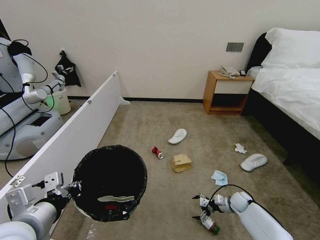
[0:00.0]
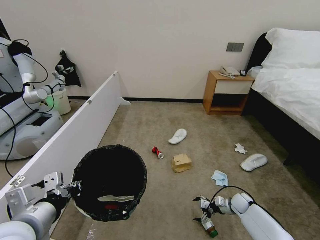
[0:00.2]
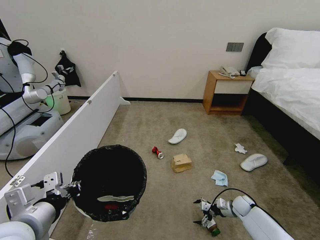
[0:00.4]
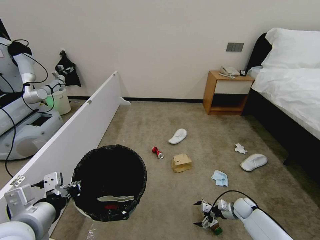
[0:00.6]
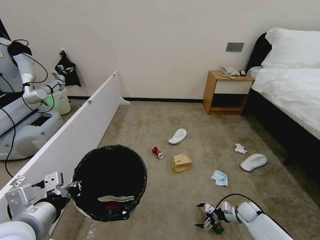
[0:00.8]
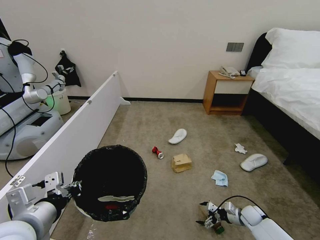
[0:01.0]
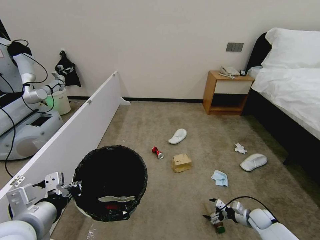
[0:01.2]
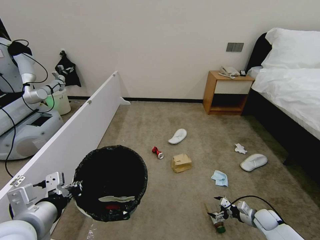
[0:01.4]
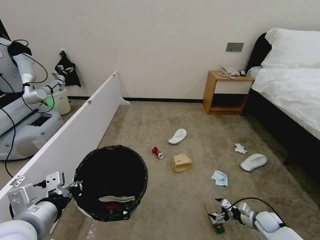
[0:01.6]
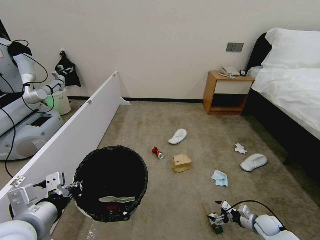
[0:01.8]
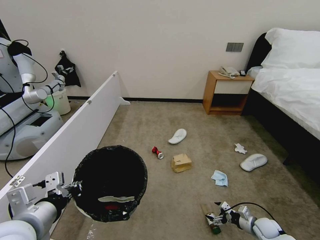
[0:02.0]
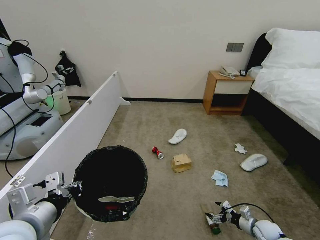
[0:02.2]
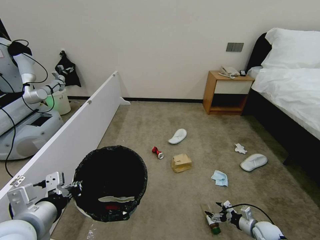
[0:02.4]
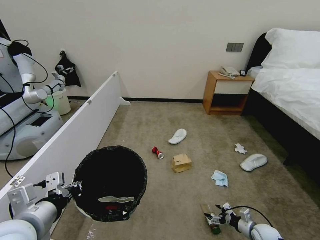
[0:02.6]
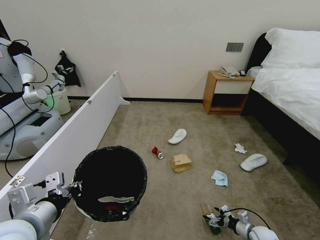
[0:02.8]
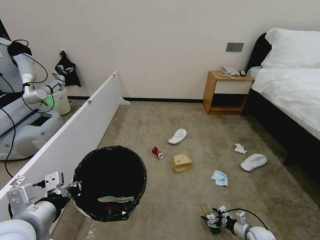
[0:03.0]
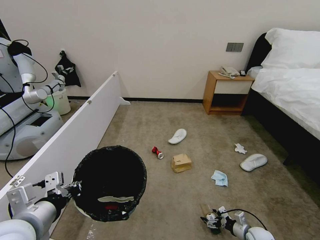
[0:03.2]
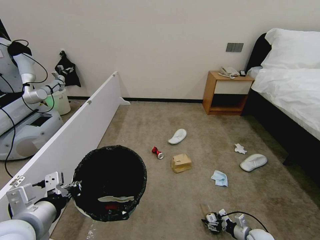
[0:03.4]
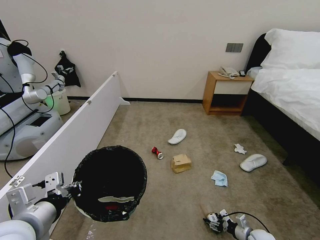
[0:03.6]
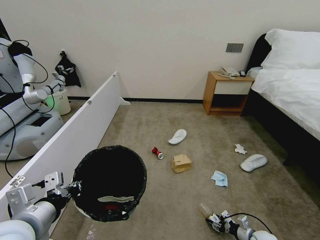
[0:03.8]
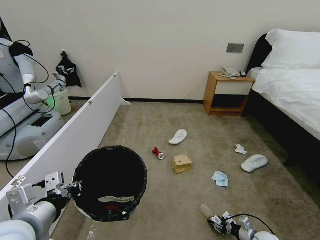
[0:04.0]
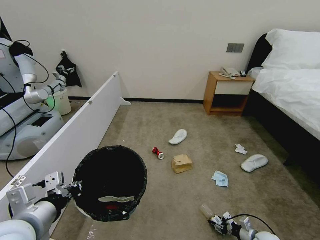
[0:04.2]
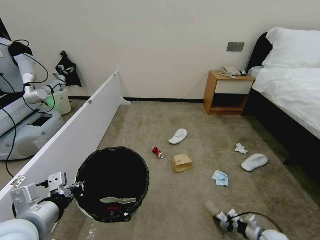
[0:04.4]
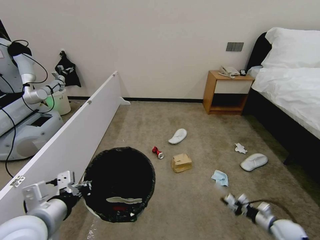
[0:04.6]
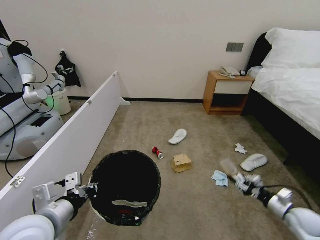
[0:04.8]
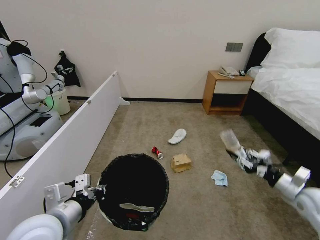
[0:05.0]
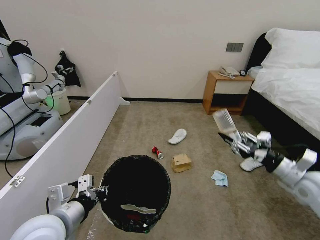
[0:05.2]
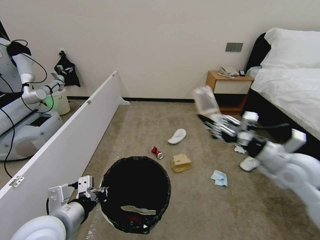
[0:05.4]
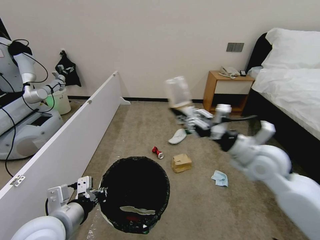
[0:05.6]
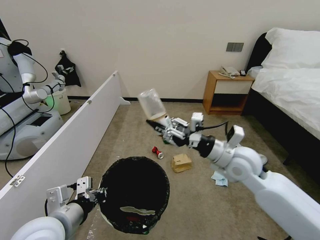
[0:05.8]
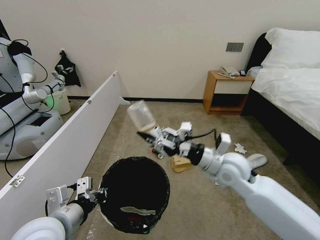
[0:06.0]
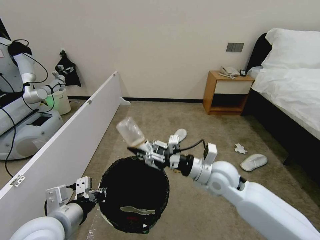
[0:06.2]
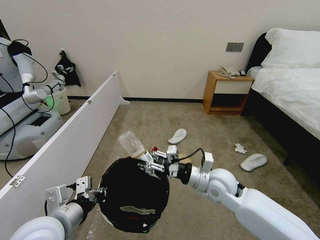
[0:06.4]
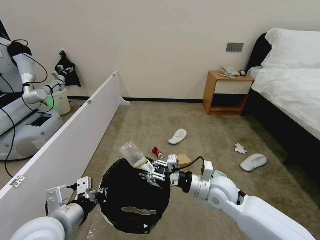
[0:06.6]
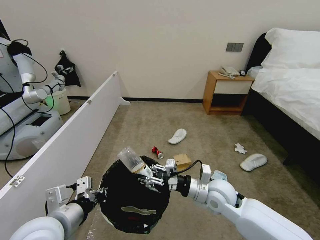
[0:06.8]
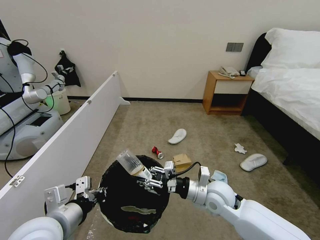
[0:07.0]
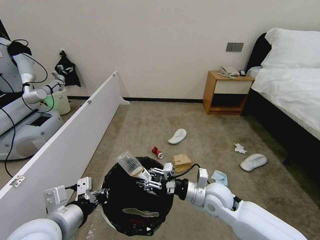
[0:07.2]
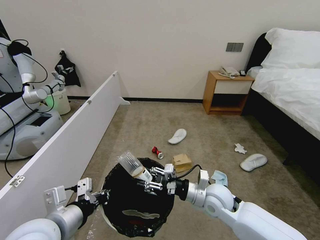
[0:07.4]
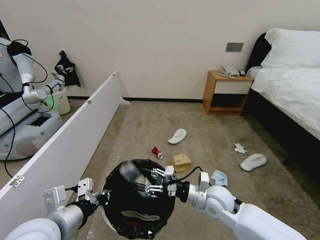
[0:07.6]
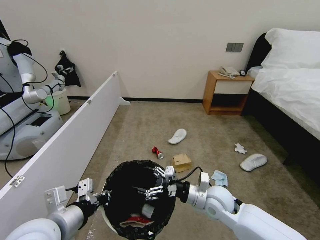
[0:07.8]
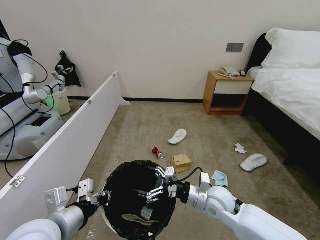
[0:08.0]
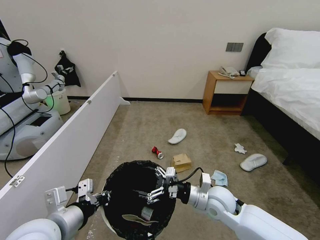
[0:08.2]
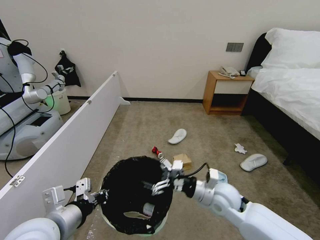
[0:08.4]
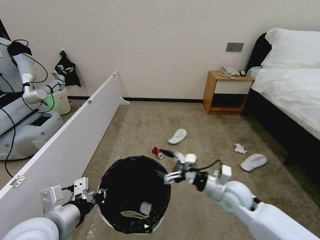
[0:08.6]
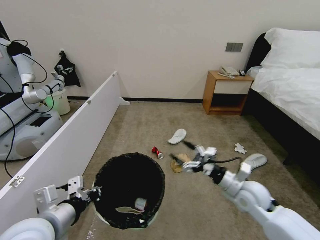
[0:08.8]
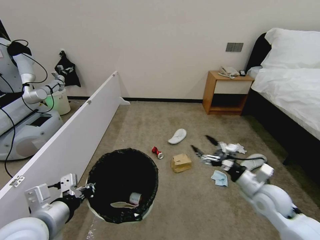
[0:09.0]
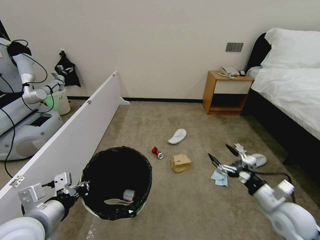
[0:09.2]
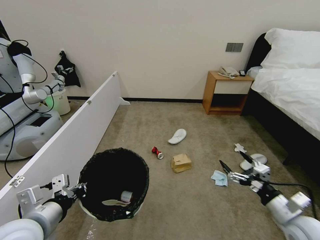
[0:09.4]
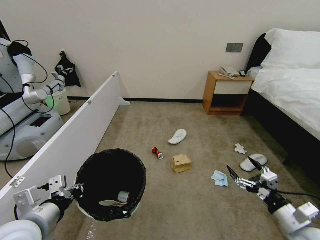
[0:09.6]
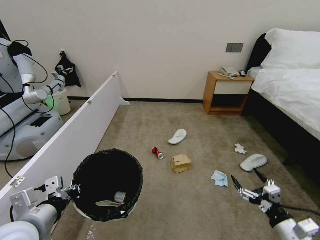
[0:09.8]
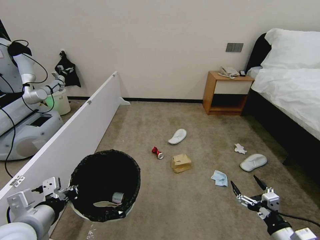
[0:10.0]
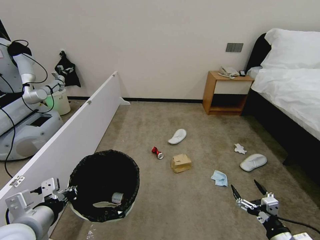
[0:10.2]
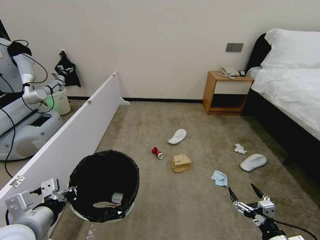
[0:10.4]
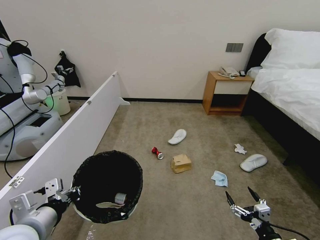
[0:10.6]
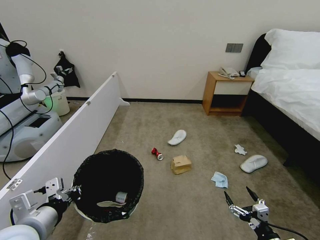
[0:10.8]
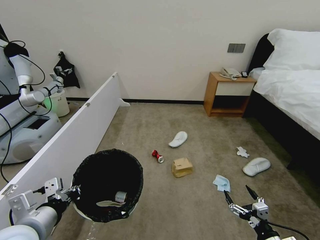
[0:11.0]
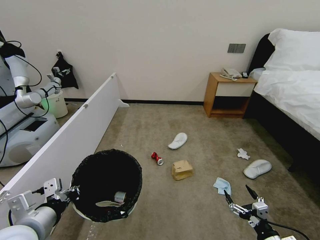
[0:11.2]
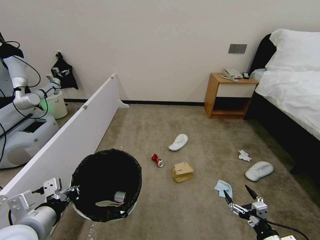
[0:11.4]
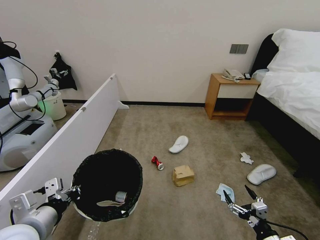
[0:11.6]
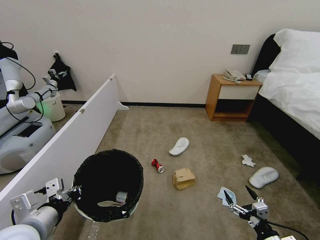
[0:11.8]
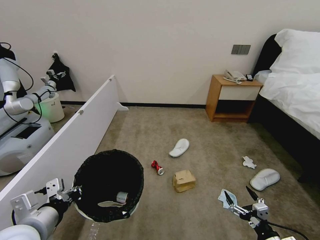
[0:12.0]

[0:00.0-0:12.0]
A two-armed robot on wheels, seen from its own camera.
Task of the whole recording: Pick up the trash bin, then pick up the garbage from the floor and place it into the trash bin.
0:00.0 to 0:01.6: The right gripper heads backward and to the right, covering approximately 10 cm.
0:01.6 to 0:03.0: The right gripper ends up about 5 cm from where it was.
0:03.0 to 0:04.4: The right gripper closes up.
0:04.4 to 0:06.0: The right gripper shifts some 50 cm upward and to the left.
0:06.0 to 0:07.6: The right gripper is displaced downward by about 15 cm.
0:07.6 to 0:09.0: The right gripper shifts some 15 cm to the right.
0:09.0 to 0:10.4: The right gripper heads backward and downward, covering some 20 cm.

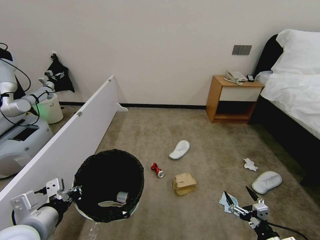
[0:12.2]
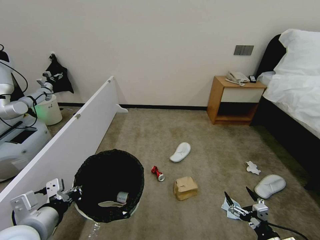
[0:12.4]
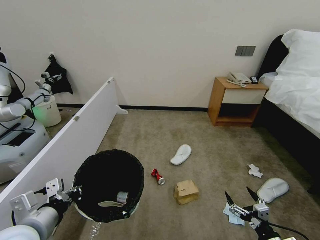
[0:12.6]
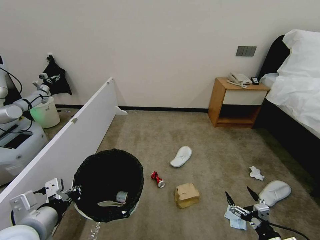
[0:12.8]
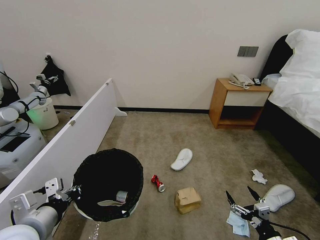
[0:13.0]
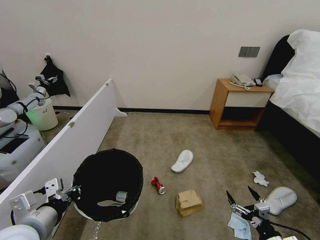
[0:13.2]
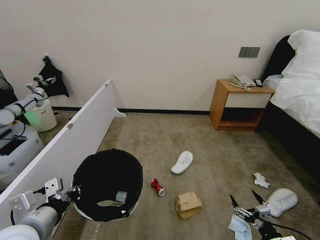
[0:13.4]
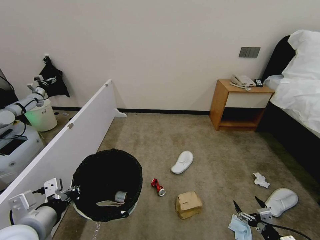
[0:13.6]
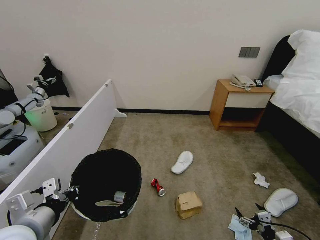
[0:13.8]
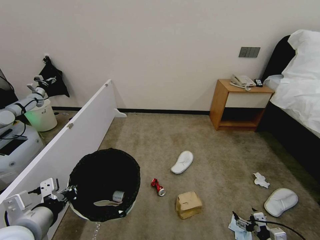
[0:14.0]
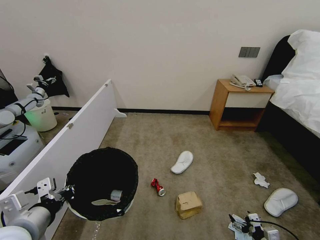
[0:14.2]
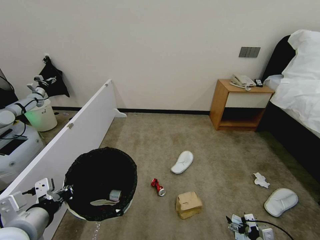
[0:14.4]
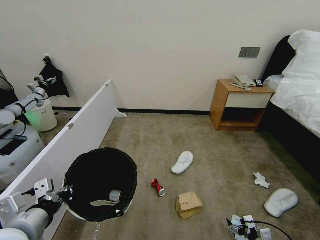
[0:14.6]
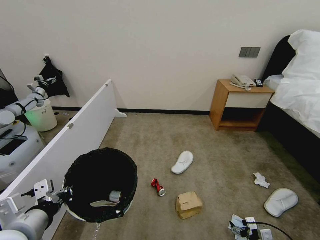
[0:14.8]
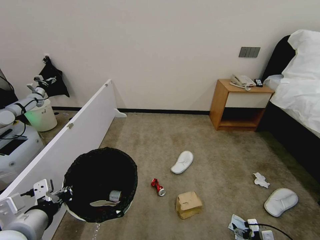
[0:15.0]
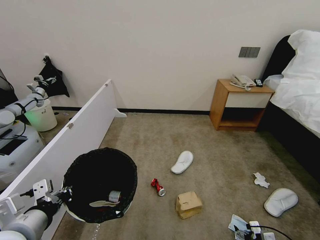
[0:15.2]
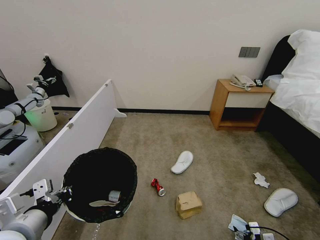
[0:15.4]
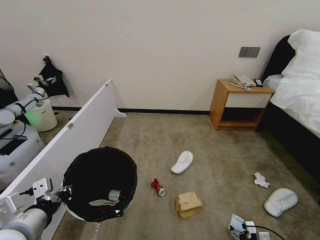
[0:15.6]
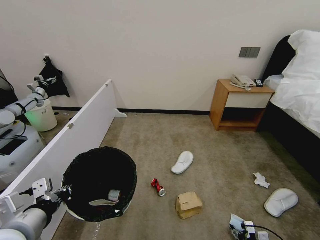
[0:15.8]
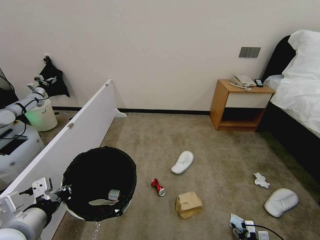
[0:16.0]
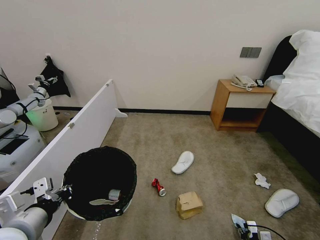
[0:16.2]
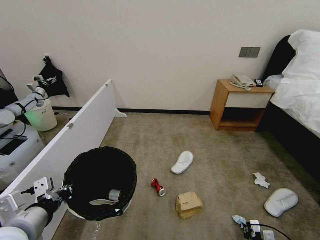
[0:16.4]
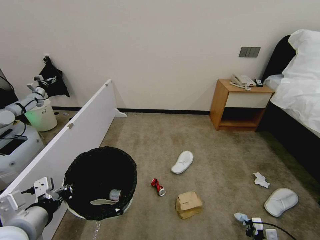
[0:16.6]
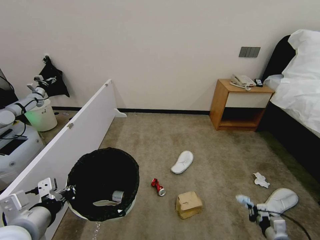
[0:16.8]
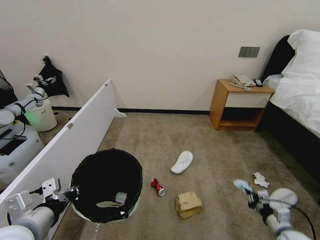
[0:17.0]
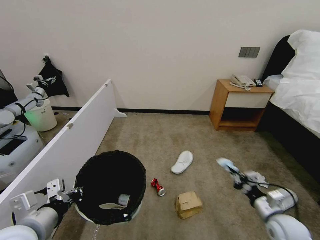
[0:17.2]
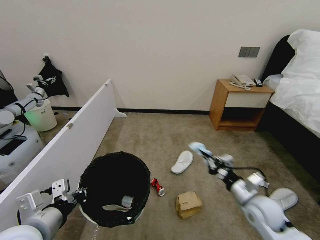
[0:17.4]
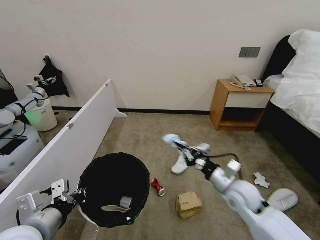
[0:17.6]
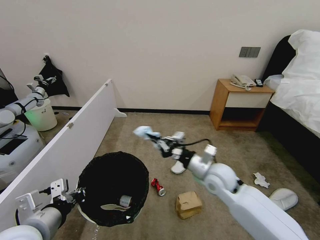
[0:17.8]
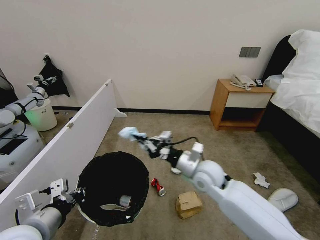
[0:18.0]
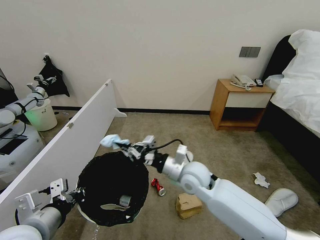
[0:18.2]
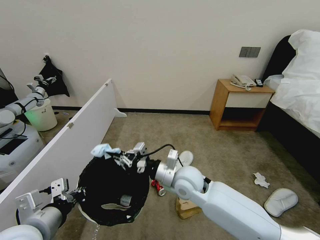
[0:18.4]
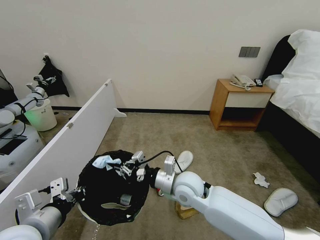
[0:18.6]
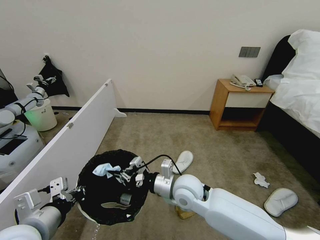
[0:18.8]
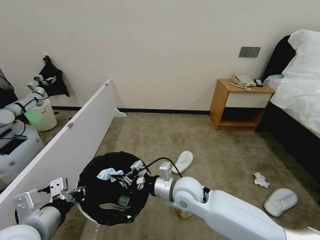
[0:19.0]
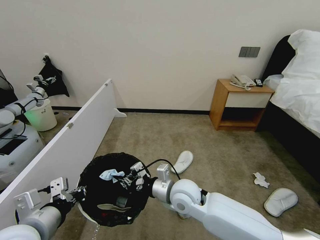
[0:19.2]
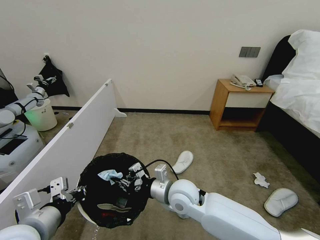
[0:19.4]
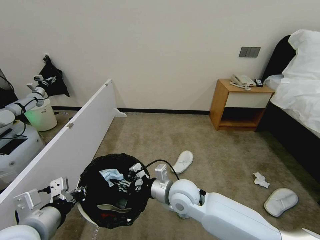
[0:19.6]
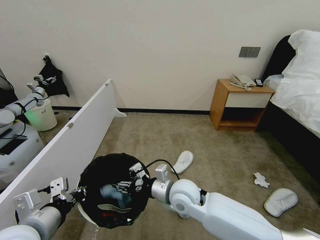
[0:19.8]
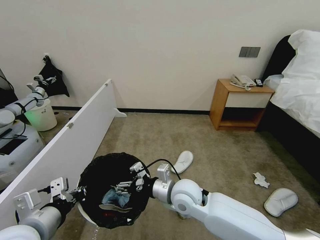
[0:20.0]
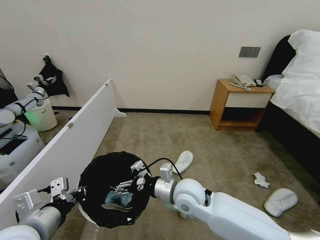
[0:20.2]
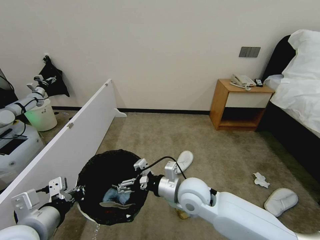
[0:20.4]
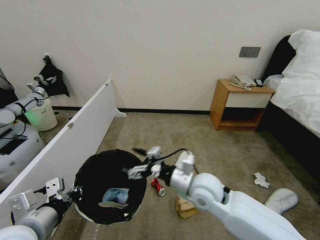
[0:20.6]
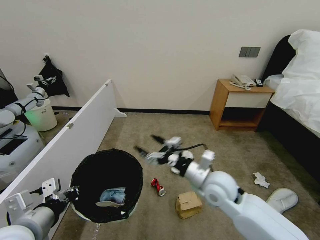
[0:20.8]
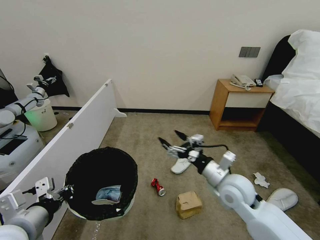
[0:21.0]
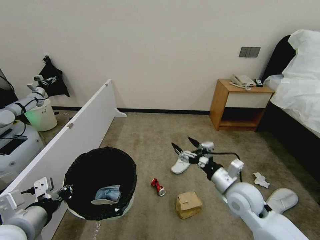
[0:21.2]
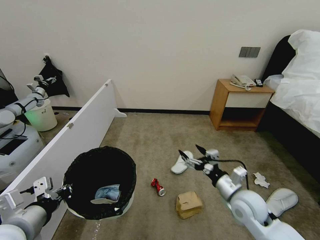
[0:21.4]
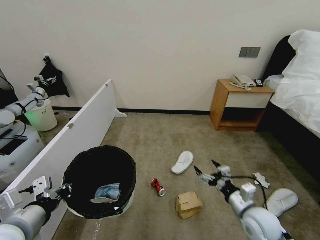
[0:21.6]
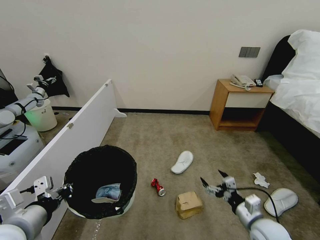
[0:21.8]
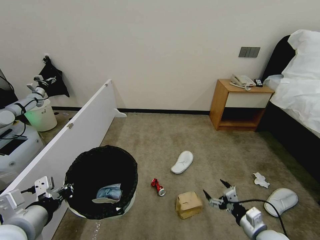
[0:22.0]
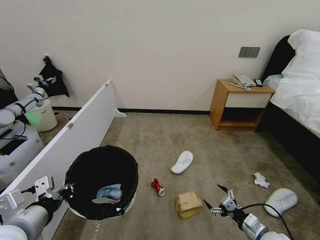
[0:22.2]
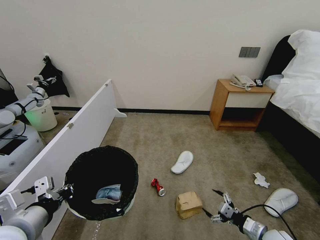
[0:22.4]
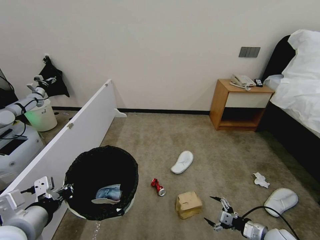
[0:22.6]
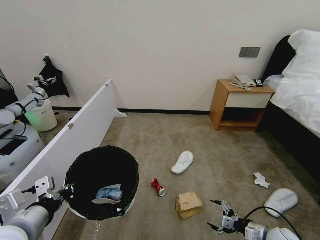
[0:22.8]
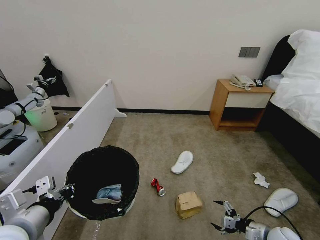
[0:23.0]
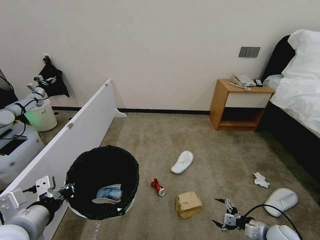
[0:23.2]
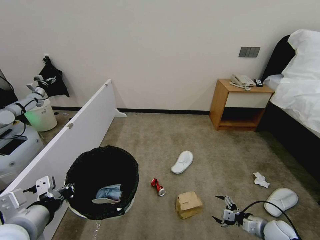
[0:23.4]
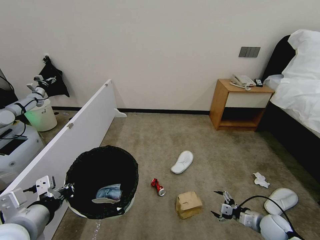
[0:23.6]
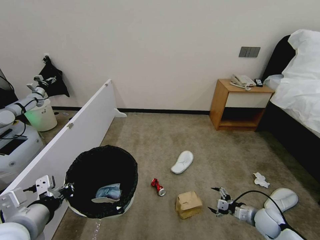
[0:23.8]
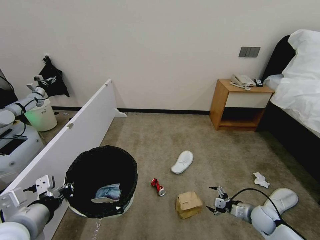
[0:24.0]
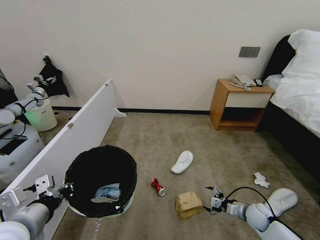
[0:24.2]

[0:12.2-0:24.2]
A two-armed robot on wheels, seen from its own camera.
Task of the whole recording: Pick up the trash bin, then pick up the garbage from the floor and place it into the trash bin.
0:12.2 to 0:13.8: The right gripper is displaced to the right by approximately 5 cm.
0:13.8 to 0:15.2: The right gripper heads downward, covering about 5 cm.
0:15.2 to 0:16.6: The right gripper closes its fingers.
0:16.6 to 0:18.2: The right gripper moves to the left, upward and forward, some 50 cm.
0:18.2 to 0:19.8: The right gripper shifts by some 5 cm, and opens its fingers.
0:19.8 to 0:21.2: The right gripper goes approximately 15 cm to the right.
0:21.2 to 0:22.6: The right gripper goes roughly 25 cm downward, to the right and backward.
0:22.6 to 0:24.2: The right gripper heads forward, covering some 10 cm.
